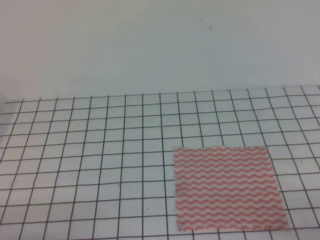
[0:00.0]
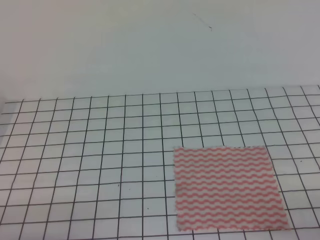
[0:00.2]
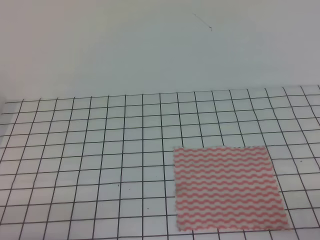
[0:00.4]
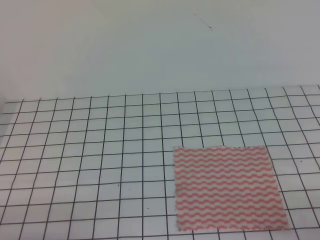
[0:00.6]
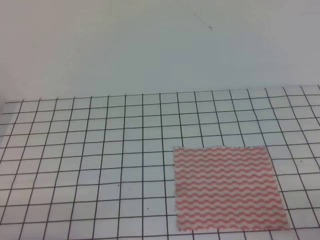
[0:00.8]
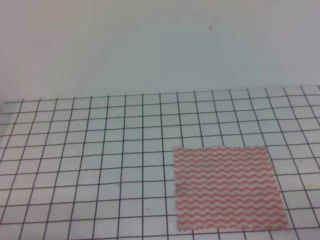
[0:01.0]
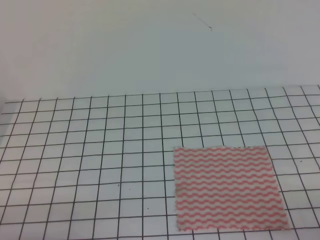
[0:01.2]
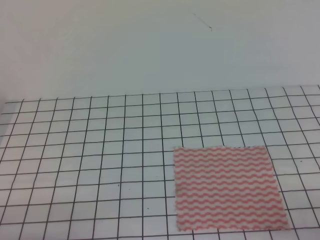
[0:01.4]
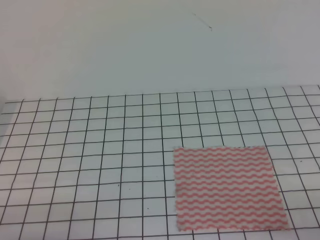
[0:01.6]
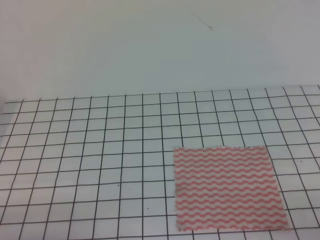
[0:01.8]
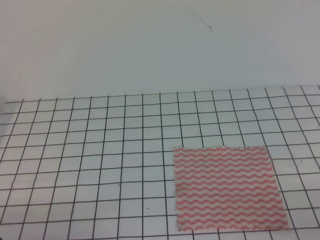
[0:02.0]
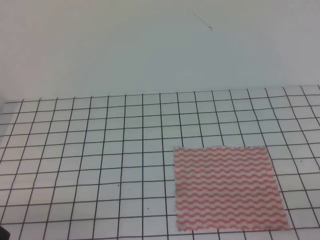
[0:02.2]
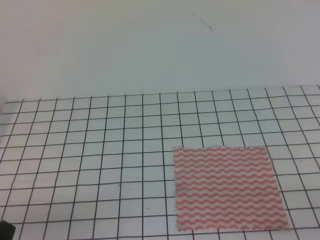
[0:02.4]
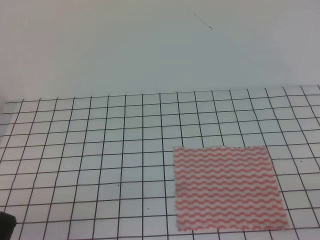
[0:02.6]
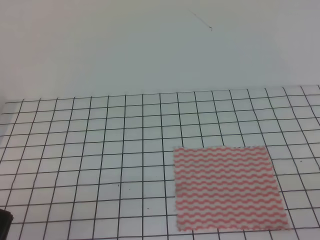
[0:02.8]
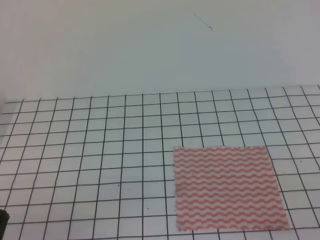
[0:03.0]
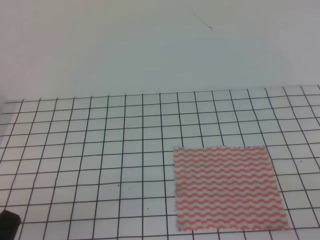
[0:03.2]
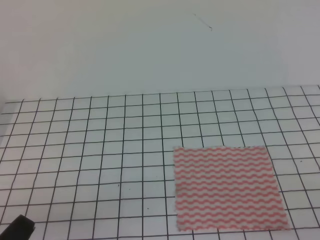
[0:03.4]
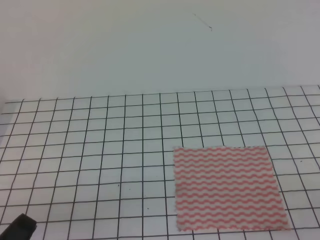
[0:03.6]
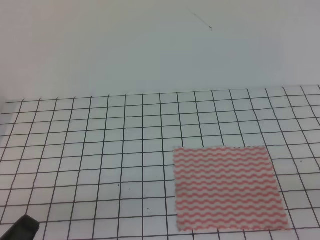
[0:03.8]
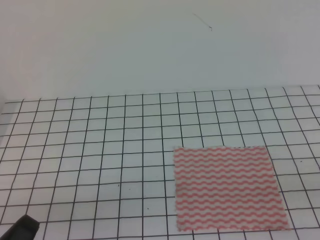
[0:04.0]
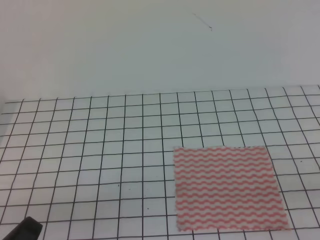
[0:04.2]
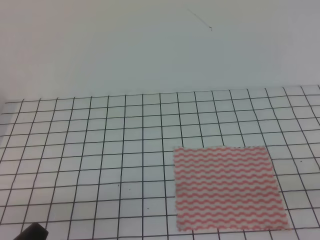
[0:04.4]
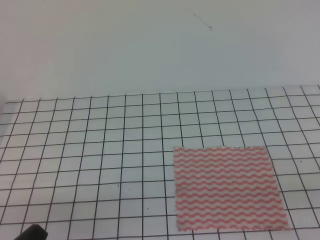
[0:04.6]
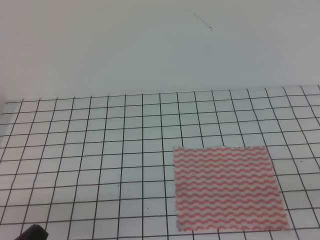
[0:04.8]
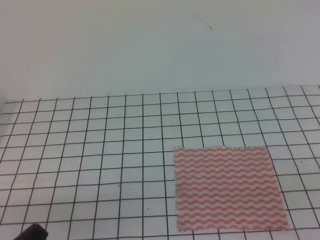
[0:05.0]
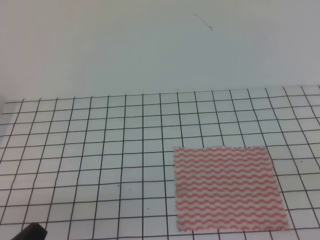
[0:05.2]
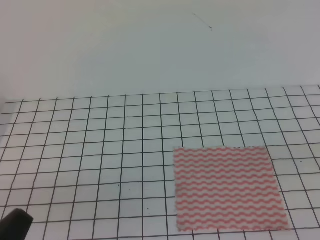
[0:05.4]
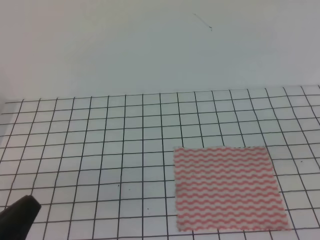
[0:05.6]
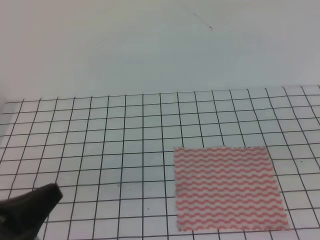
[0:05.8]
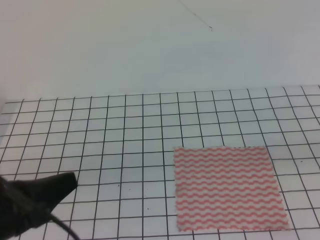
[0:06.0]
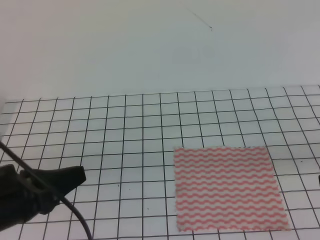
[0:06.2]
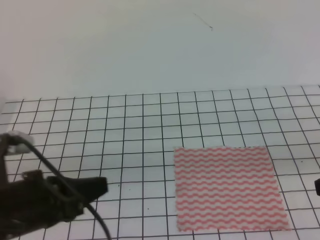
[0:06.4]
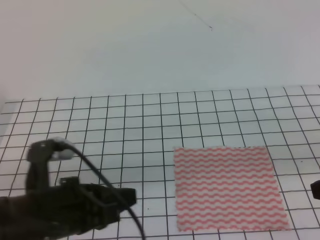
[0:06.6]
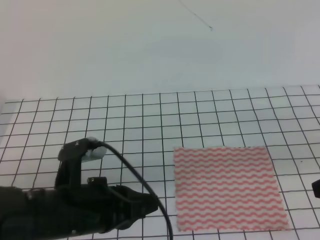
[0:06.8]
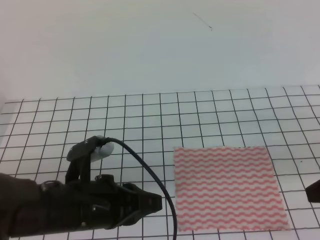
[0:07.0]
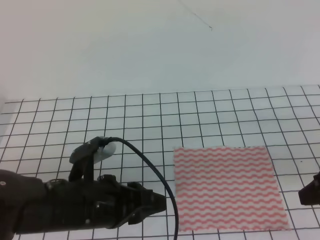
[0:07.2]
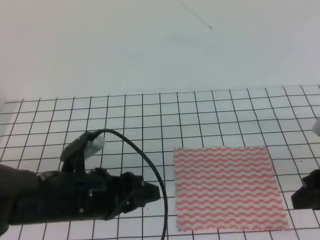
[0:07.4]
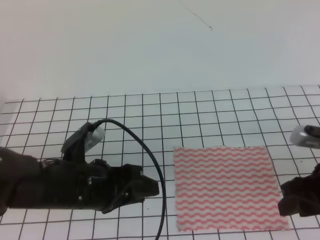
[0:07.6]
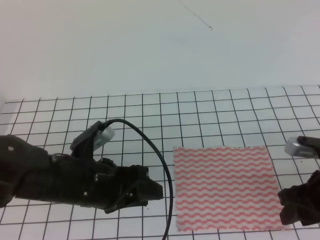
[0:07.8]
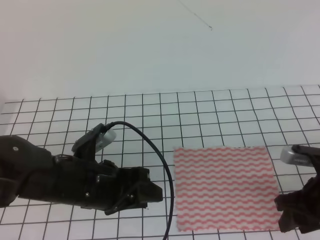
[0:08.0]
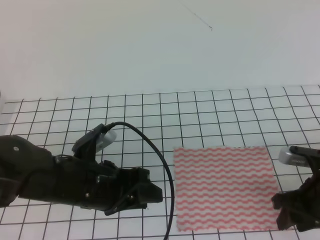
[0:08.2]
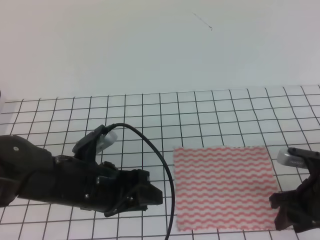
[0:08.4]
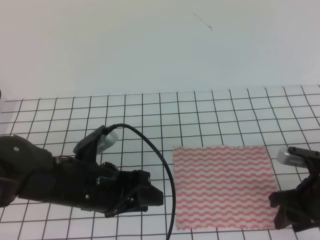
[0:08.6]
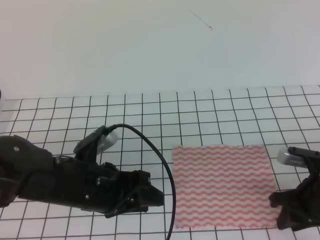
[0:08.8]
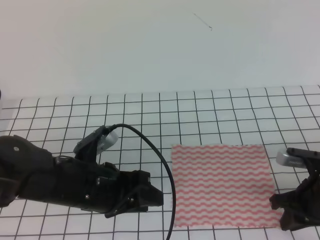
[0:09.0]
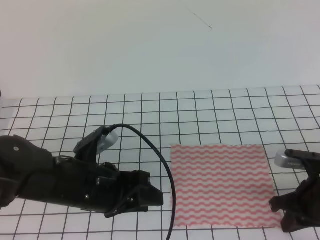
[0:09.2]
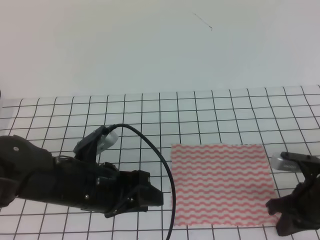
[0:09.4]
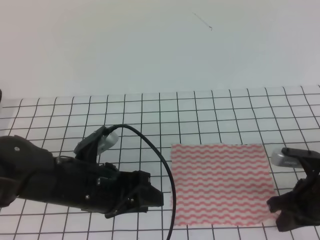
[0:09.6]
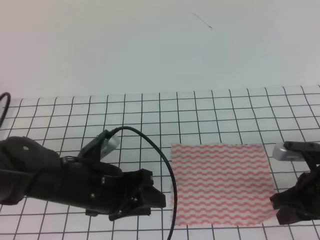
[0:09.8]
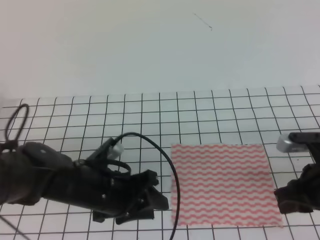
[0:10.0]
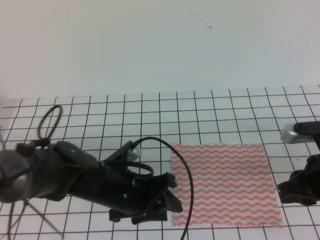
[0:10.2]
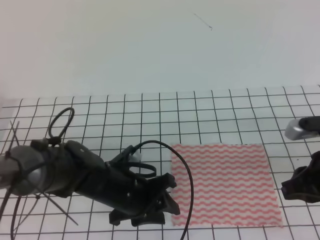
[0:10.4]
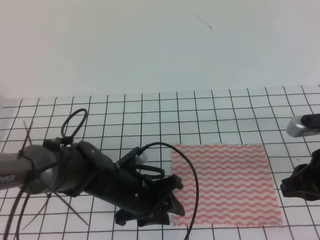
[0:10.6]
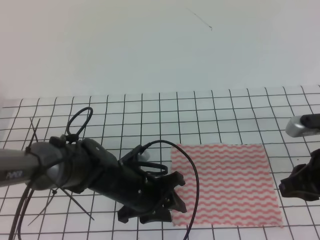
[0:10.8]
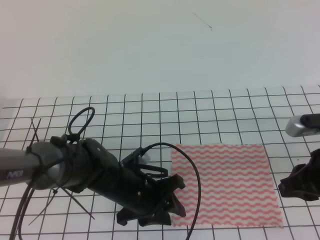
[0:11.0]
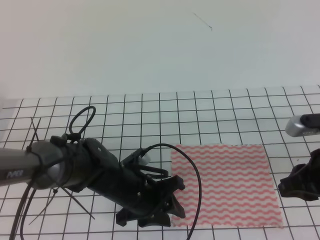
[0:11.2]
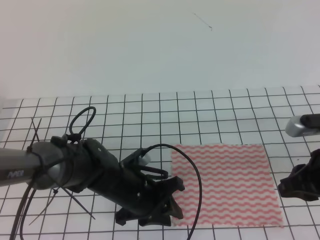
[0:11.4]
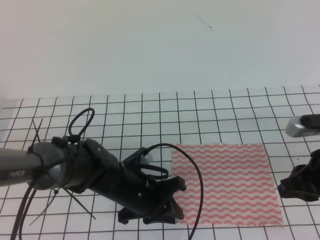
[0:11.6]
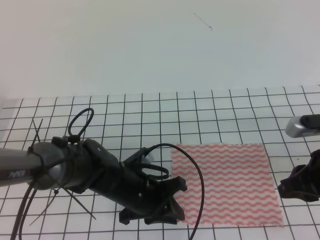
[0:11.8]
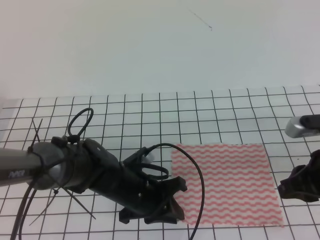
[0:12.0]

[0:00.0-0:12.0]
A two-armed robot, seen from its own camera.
Step, 0:00.0 to 0:09.0: Fold the towel upwards with the left gripper.
0:00.0 to 0:01.6: Neither gripper changes place.
0:04.4 to 0:06.0: The left gripper goes approximately 10 cm upward and forward.
0:06.0 to 0:07.6: The right gripper heads downward and forward, covering about 15 cm, and opens its fingers, while the left gripper is displaced to the right and forward by some 10 cm, and opens its fingers.
0:07.6 to 0:09.0: The right gripper shifts roughly 10 cm downward, and closes up.
0:09.0 to 0:10.4: The left gripper moves downward, approximately 5 cm. Meanwhile the right gripper goes roughly 10 cm upward, and closes, then opens again.
0:10.4 to 0:12.0: The left gripper closes its fingers.

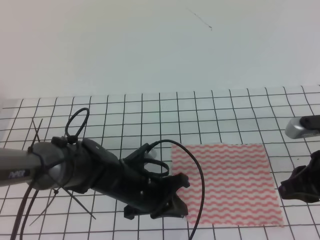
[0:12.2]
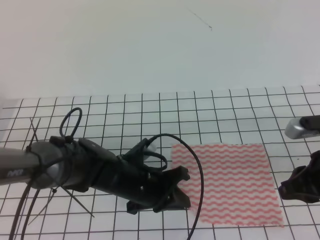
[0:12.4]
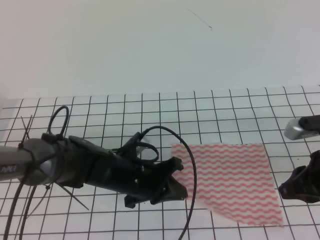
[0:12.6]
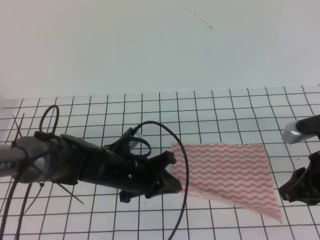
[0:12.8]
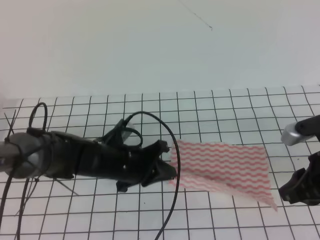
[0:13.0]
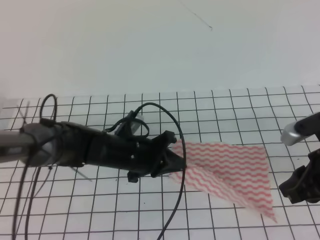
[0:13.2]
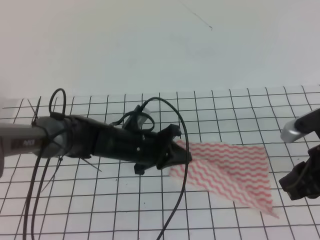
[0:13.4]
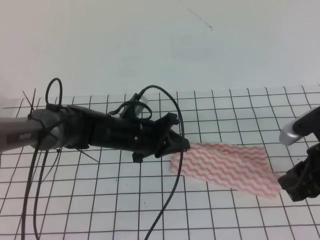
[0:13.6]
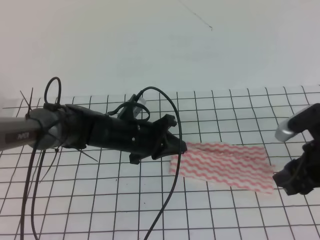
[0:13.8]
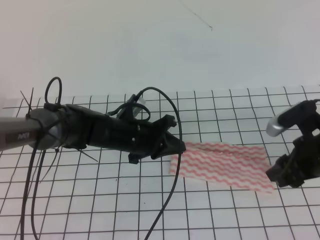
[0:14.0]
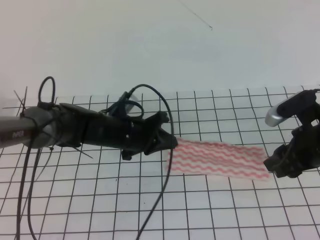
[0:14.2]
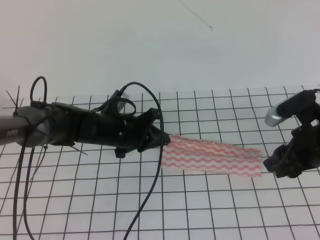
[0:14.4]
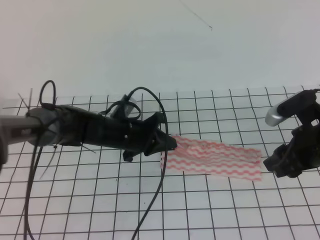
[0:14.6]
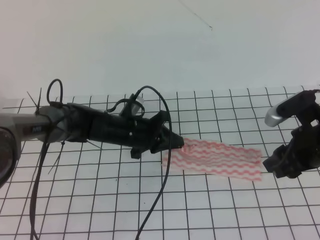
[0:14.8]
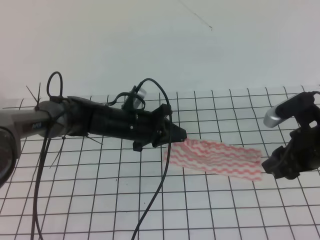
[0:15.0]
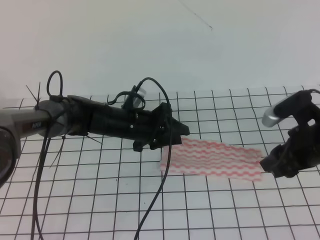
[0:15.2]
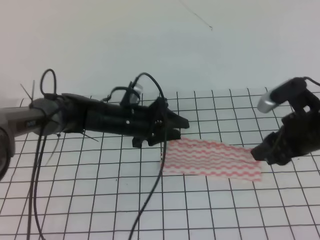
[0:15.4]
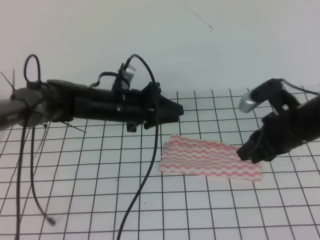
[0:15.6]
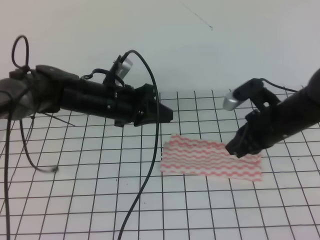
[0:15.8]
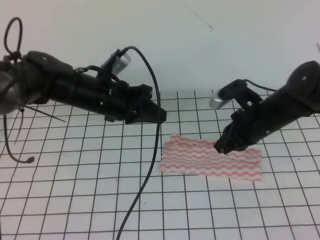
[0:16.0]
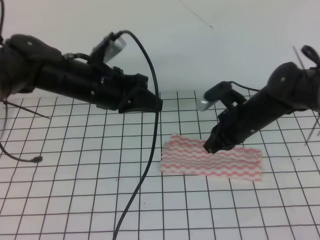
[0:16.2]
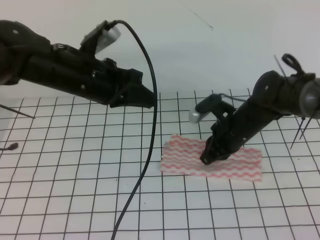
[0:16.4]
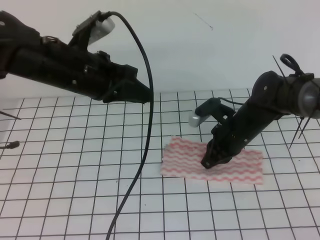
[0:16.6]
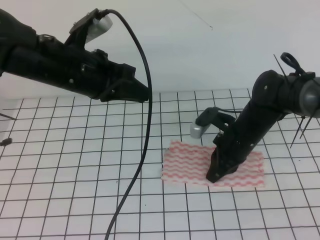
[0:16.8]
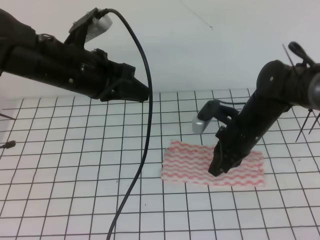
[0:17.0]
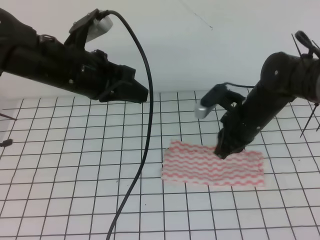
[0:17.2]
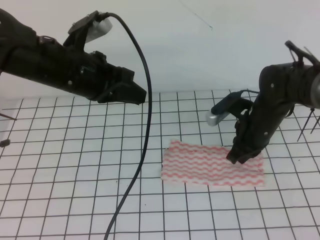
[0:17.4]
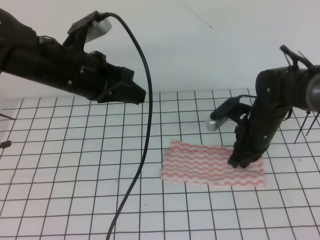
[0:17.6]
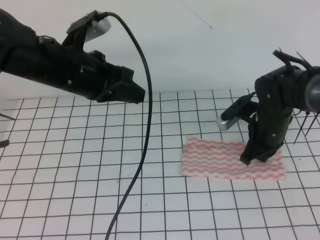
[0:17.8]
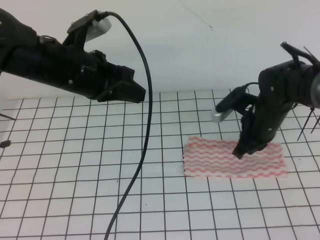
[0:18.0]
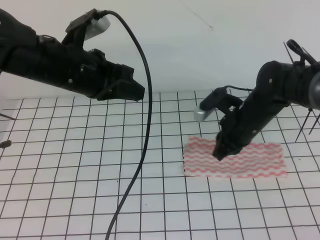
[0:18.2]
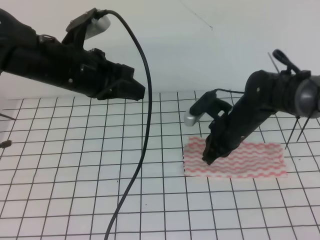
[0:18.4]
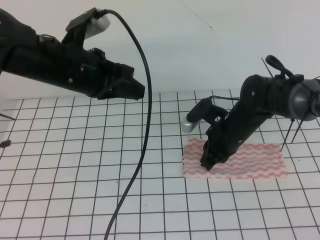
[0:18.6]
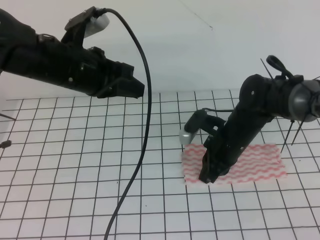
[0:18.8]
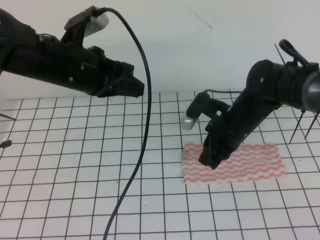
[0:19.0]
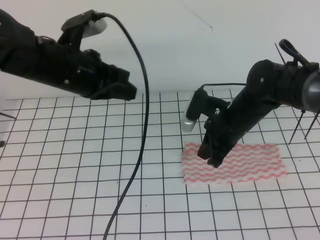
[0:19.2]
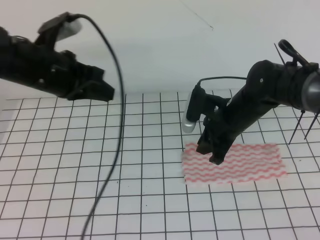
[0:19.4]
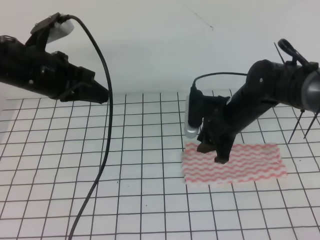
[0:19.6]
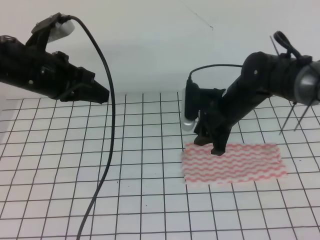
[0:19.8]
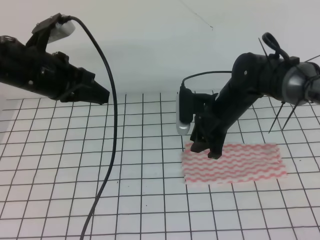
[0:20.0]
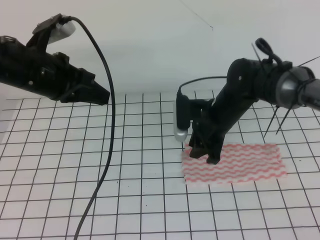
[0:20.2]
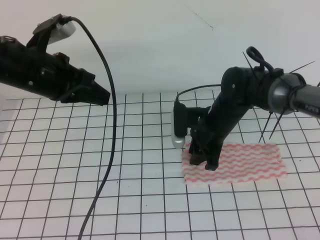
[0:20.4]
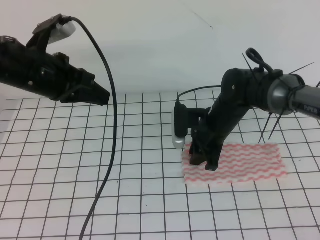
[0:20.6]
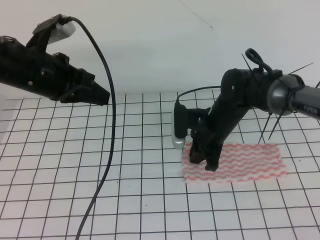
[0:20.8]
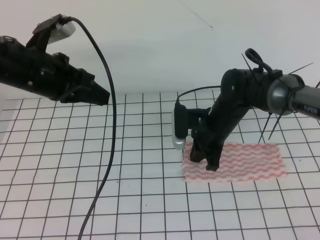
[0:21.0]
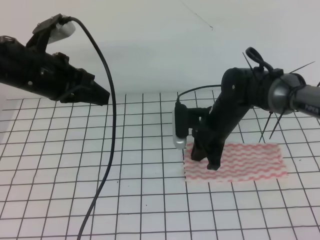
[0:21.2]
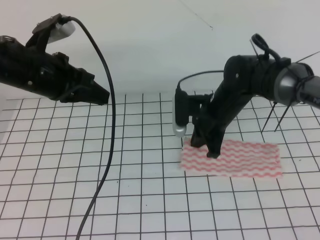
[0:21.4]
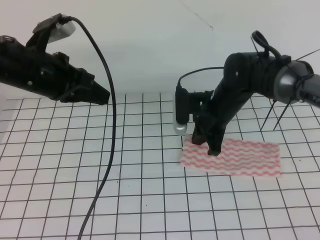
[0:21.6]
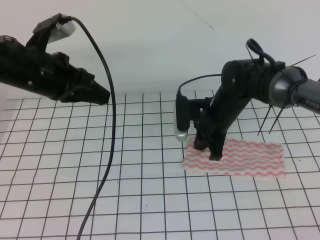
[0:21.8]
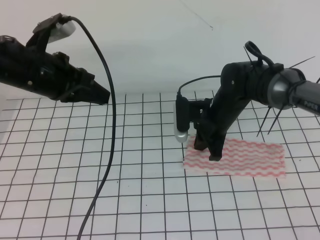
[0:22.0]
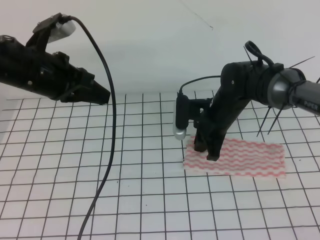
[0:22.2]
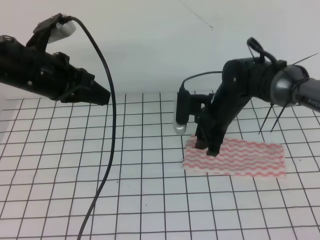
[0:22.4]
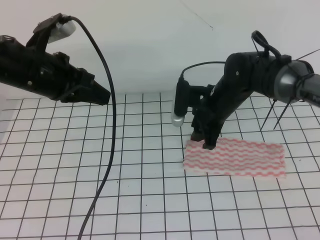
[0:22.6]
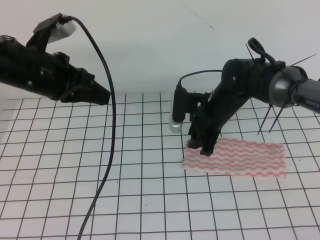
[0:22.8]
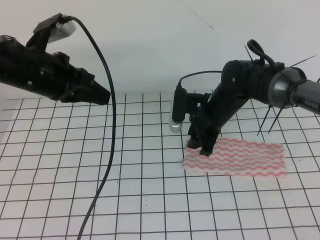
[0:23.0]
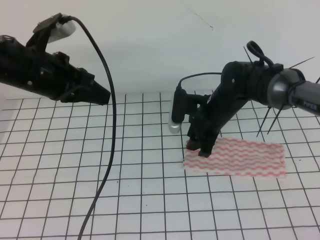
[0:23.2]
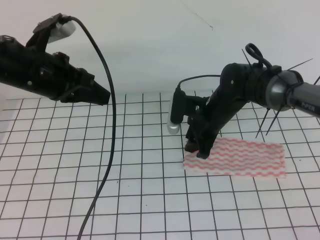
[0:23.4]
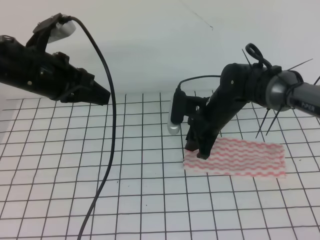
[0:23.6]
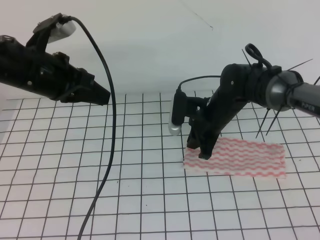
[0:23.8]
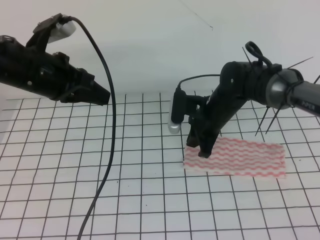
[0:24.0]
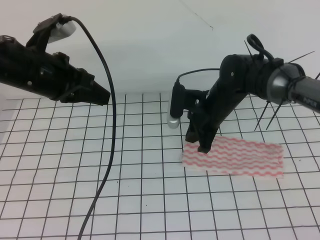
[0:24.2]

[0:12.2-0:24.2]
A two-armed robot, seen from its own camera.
Step, 0:12.2 to 0:19.6: Tidy up the towels.
0:12.2 to 0:13.8: The left gripper shifts roughly 10 cm forward; the right gripper opens its fingers.
0:13.8 to 0:15.2: The left gripper opens its fingers.
0:15.2 to 0:16.6: The right gripper travels to the left, forward and downward by some 15 cm, and closes its fingers. Meanwhile the left gripper shifts roughly 15 cm upward, and closes.
0:18.2 to 0:19.8: The left gripper goes roughly 5 cm to the left; the right gripper opens its fingers.
0:19.8 to 0:21.2: The right gripper closes up.
0:21.2 to 0:22.6: The right gripper opens up.
0:22.6 to 0:24.2: The right gripper closes its fingers.
